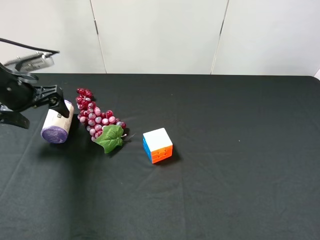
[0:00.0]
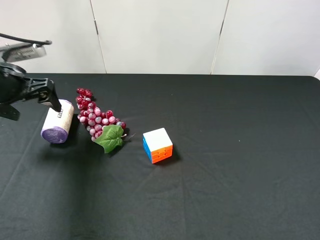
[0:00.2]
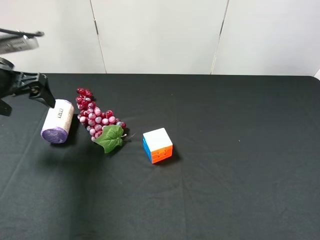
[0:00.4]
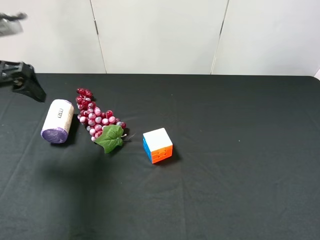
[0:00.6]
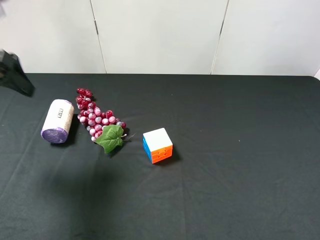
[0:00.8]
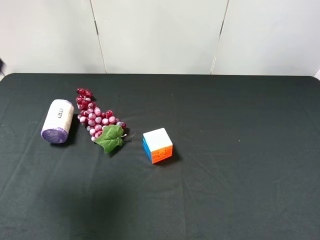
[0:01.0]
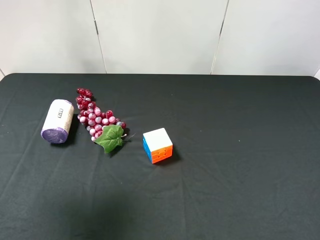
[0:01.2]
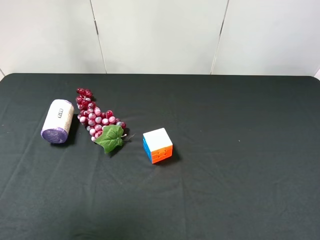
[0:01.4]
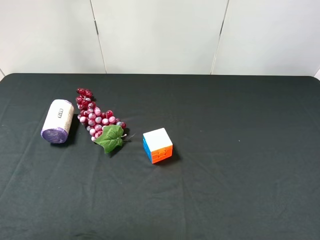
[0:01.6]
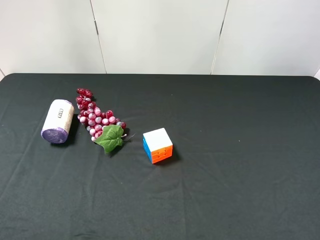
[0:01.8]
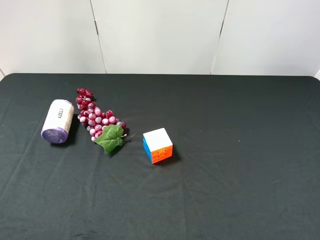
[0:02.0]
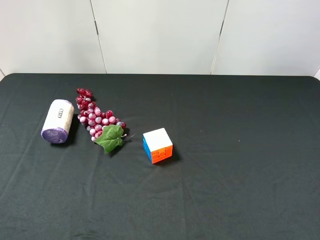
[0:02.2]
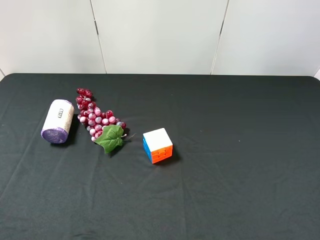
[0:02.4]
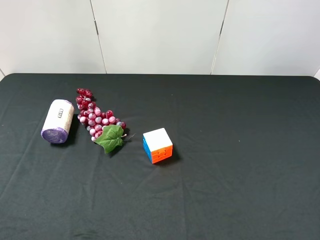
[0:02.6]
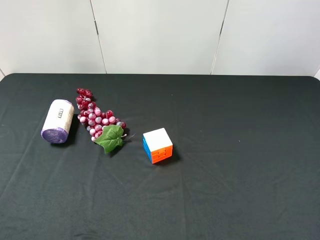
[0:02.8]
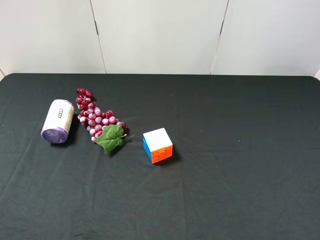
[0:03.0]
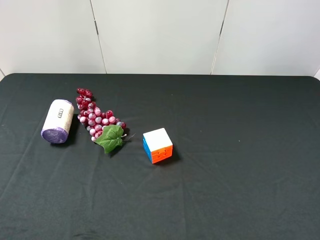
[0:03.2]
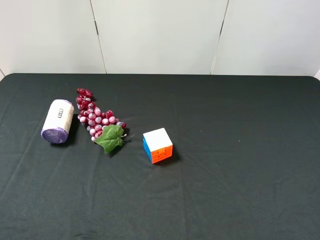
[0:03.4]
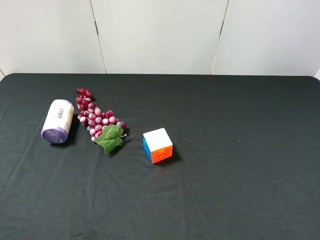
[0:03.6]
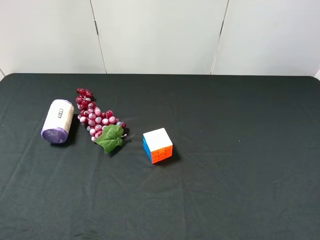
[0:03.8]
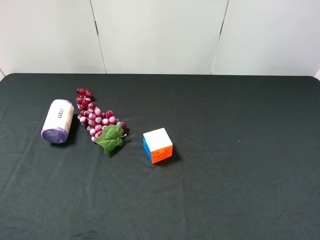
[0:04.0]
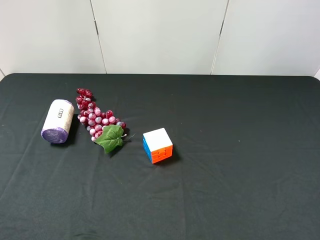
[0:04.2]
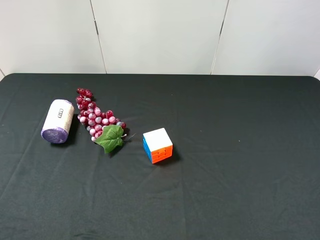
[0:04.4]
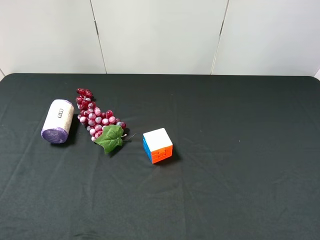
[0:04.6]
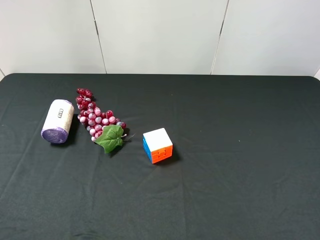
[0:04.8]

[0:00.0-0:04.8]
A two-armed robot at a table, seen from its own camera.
Task of the whole recording: use the right gripper to pick up the item and transfer it from the right gripper to the left gripper.
0:00.0 to 0:01.6: The left gripper is displaced upward and backward by about 30 cm.
